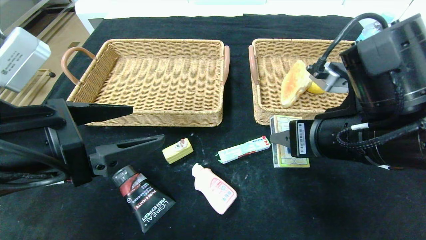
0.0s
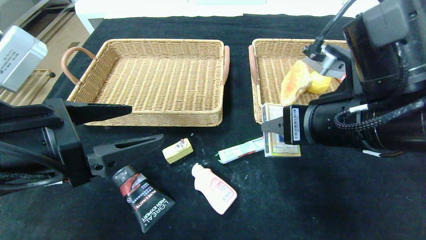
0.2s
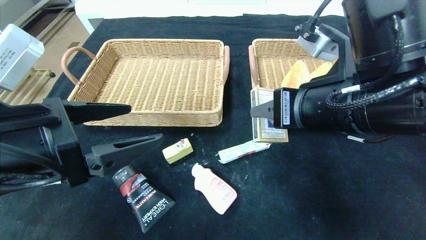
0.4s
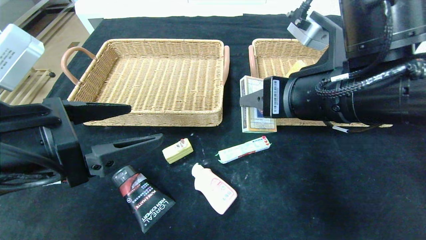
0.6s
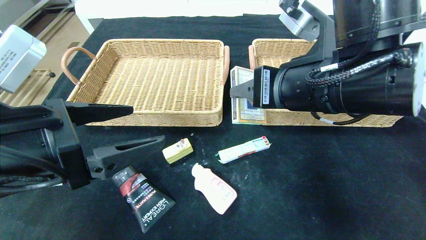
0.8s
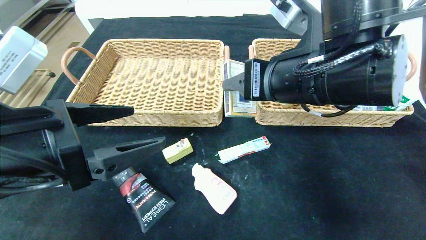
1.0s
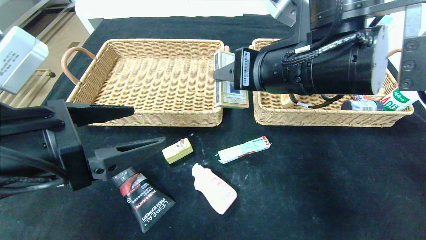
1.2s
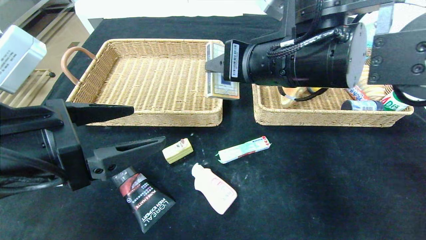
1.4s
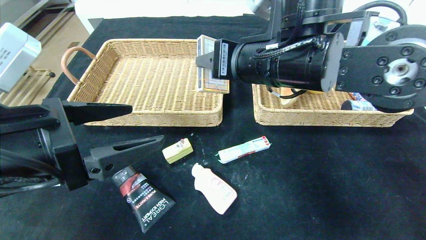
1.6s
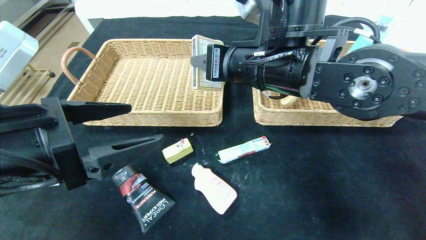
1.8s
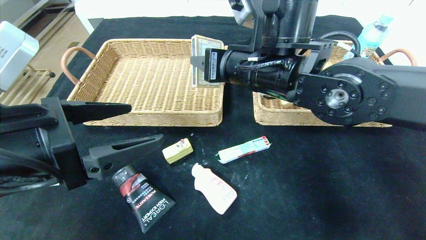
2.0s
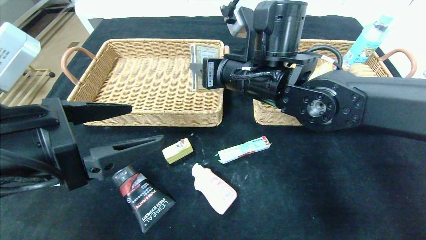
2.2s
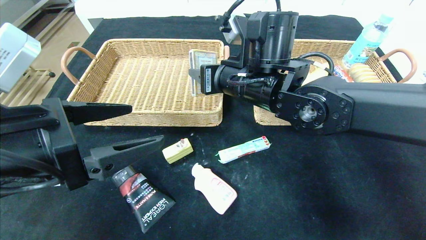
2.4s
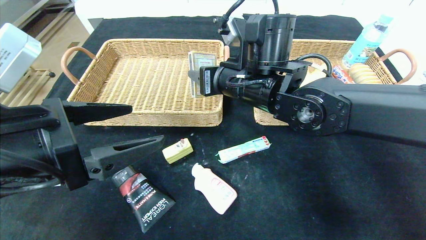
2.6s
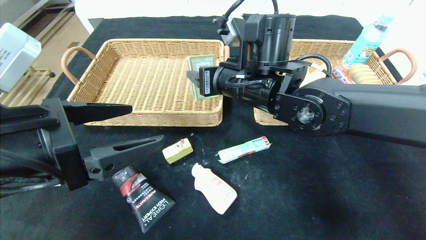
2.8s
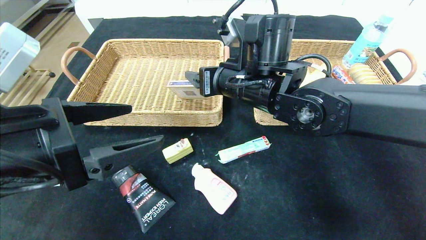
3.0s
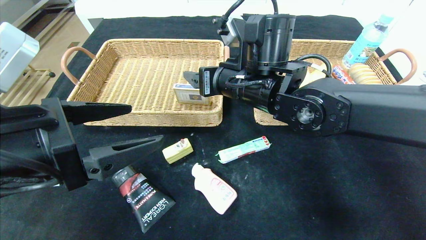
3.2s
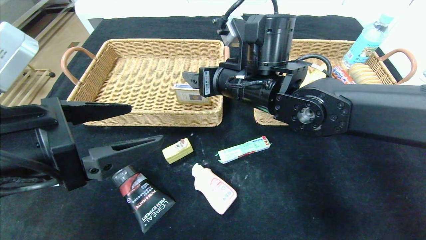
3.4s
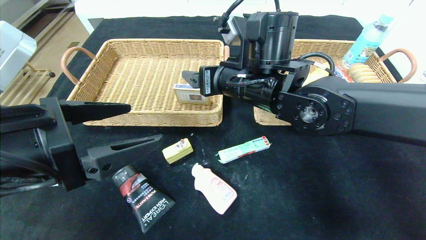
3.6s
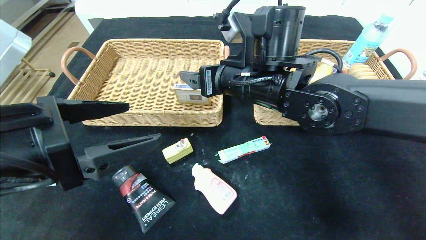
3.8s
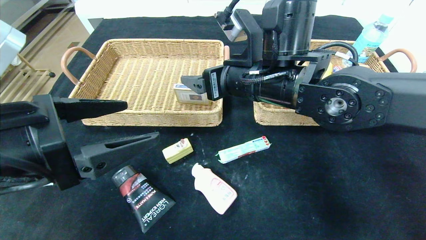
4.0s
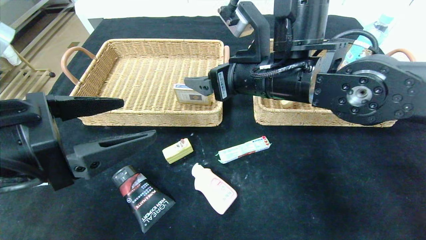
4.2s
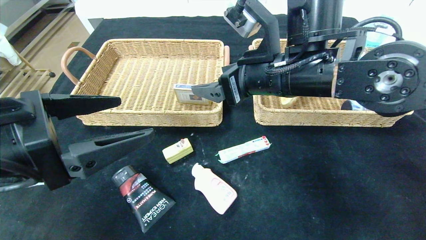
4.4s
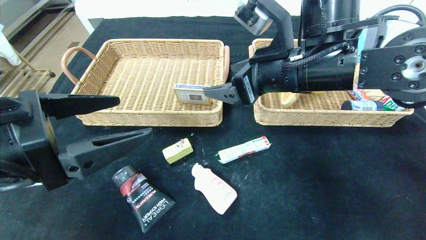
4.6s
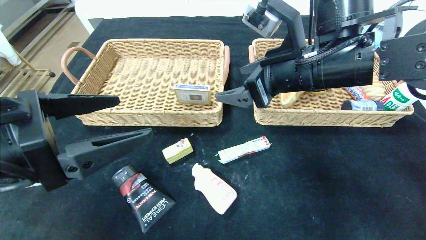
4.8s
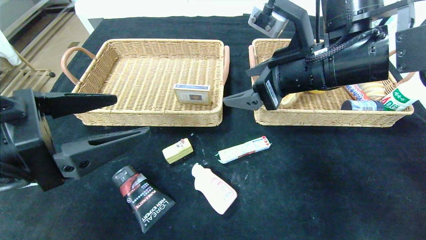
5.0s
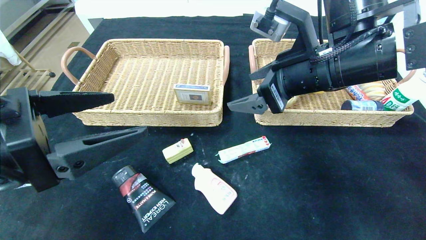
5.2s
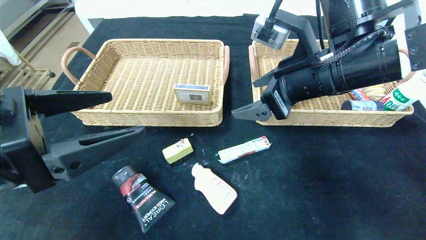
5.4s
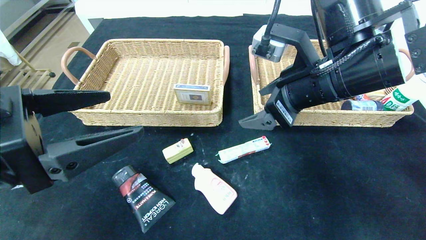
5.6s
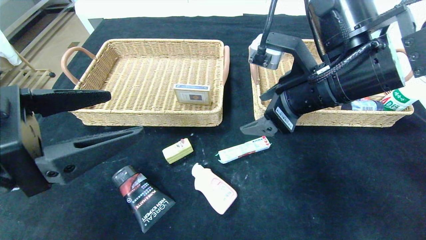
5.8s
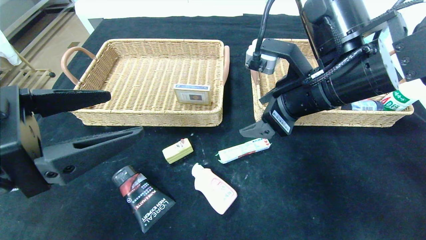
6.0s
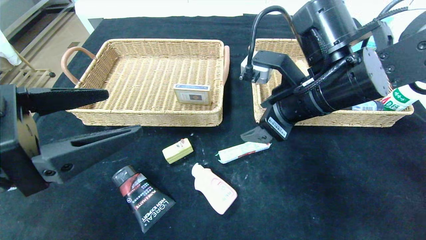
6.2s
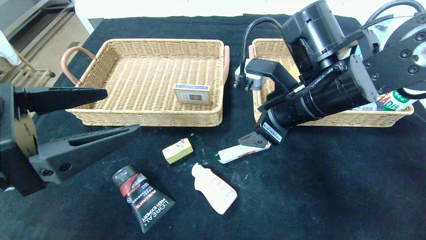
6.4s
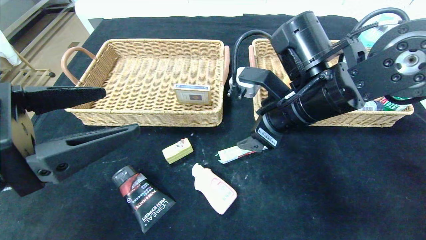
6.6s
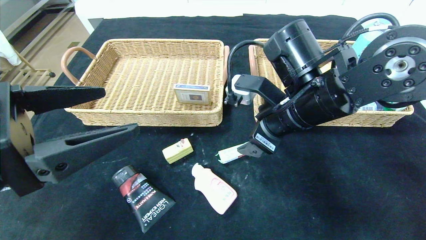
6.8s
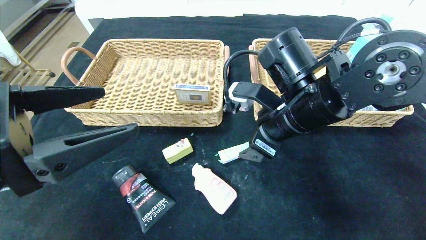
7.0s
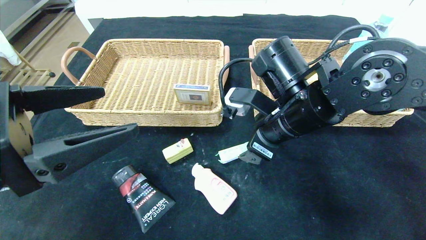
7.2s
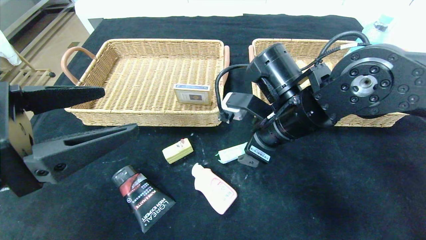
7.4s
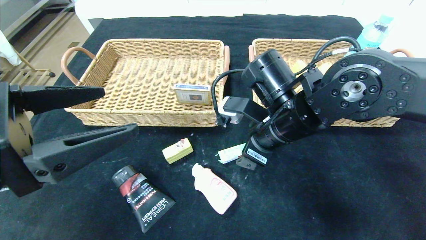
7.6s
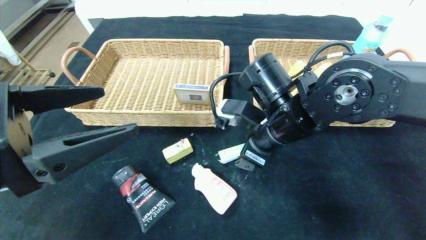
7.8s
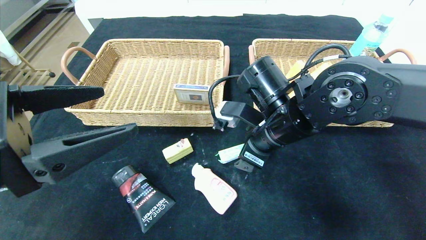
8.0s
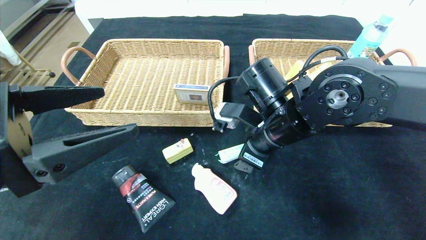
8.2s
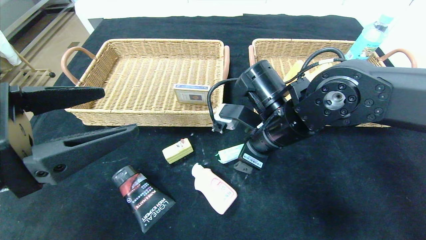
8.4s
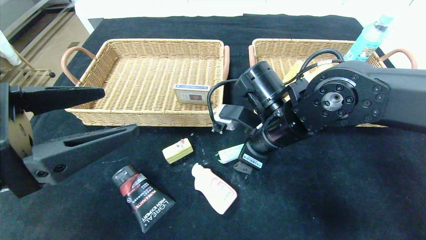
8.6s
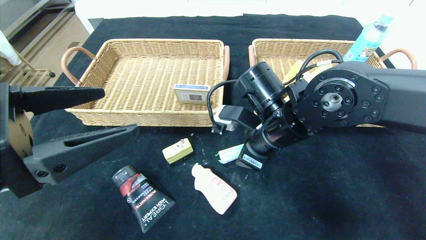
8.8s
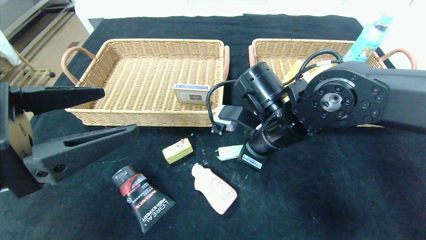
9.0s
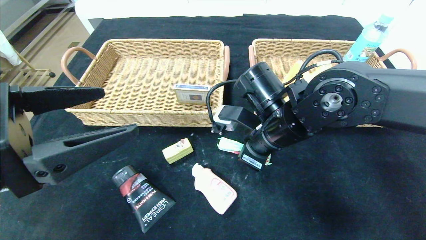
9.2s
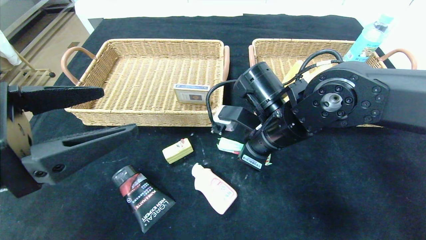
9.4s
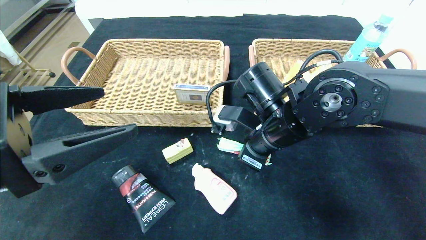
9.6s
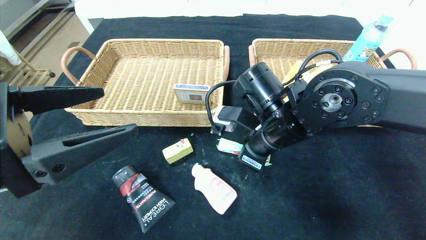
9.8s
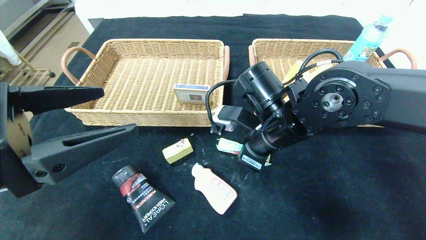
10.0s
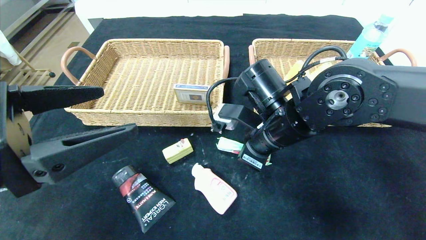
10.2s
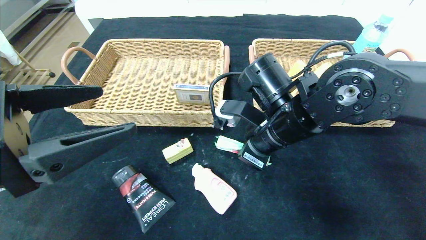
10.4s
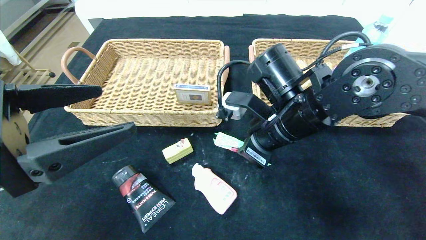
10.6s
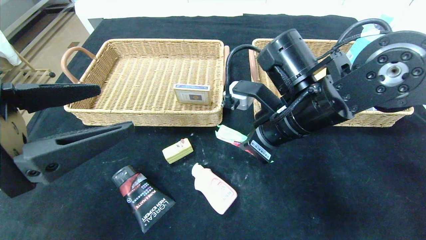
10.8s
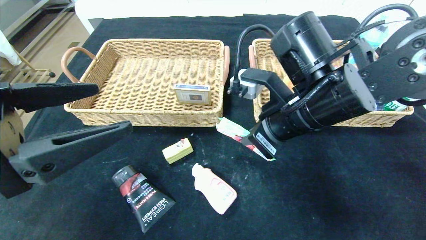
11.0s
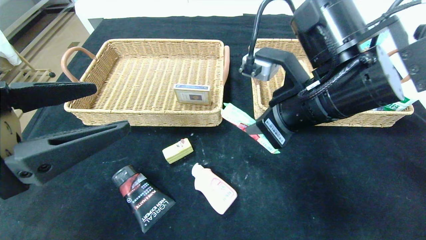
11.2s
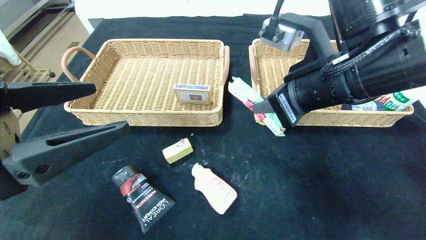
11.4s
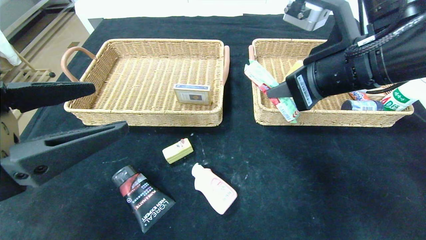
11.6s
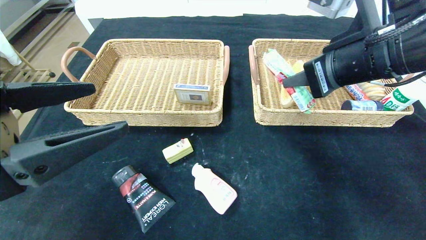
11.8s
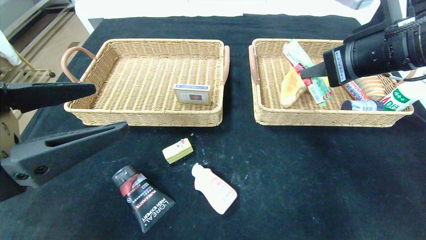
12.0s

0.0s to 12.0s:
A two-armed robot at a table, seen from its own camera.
0.0s to 1.6s: The right gripper shifts roughly 15 cm to the left, forward and upward.
1.6s to 3.0s: The right gripper ends up about 5 cm from where it was.
3.0s to 4.4s: The right gripper changes place by approximately 5 cm.
4.4s to 6.0s: The right gripper ends up roughly 5 cm from where it was.
6.0s to 7.6s: The right gripper is displaced downward by about 5 cm.
7.6s to 9.0s: The right gripper closes its fingers.
9.0s to 10.4s: The right gripper closes.
10.4s to 12.0s: The right gripper goes some 20 cm to the right and upward.

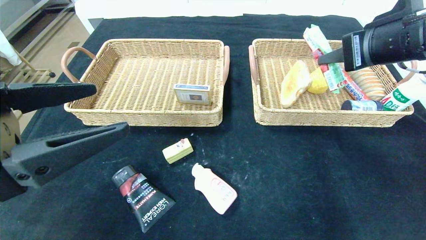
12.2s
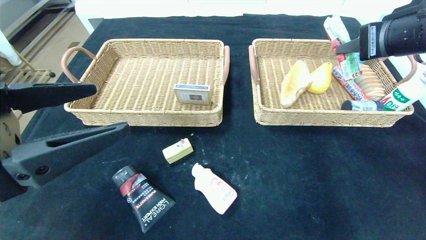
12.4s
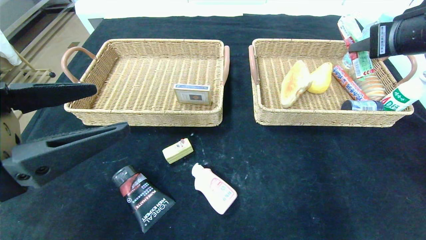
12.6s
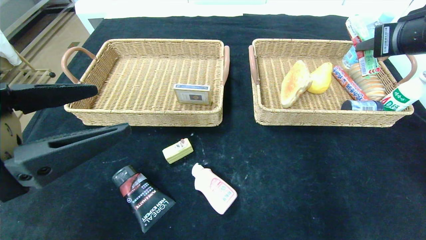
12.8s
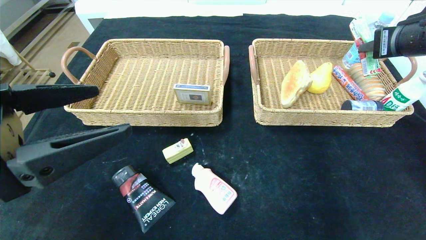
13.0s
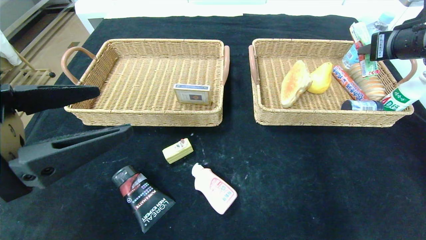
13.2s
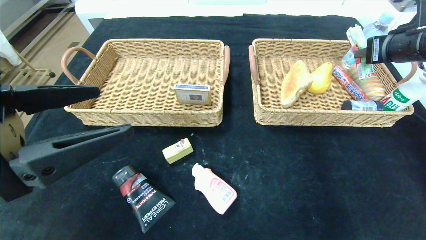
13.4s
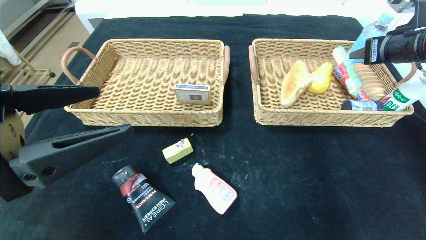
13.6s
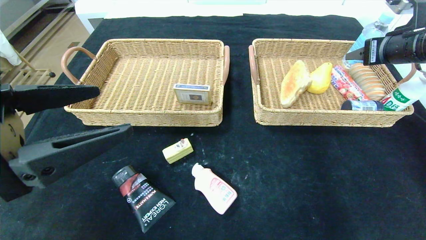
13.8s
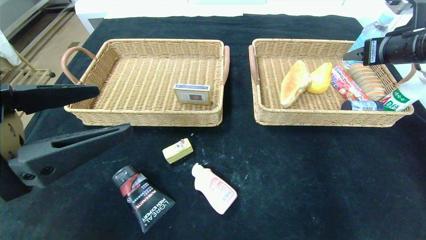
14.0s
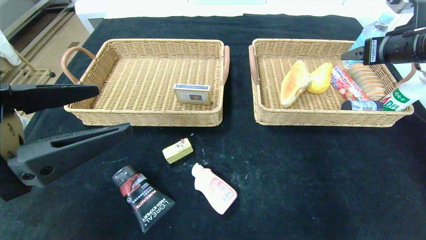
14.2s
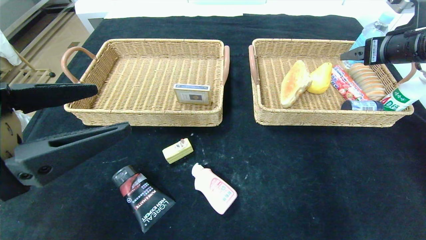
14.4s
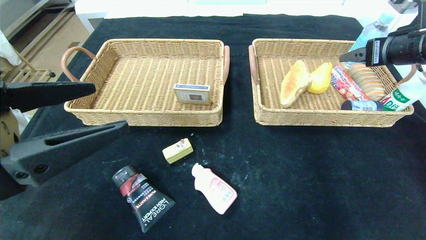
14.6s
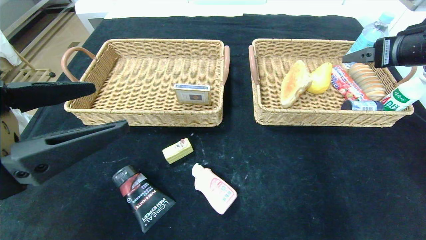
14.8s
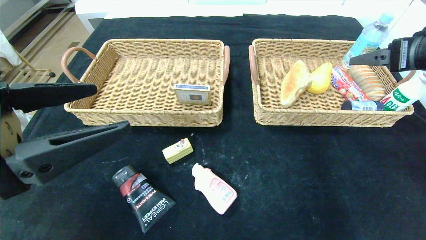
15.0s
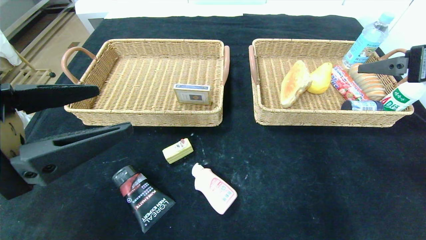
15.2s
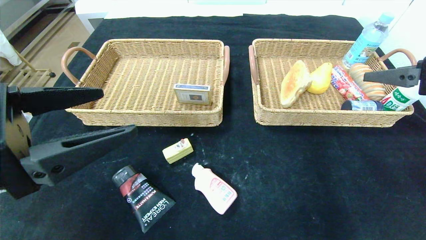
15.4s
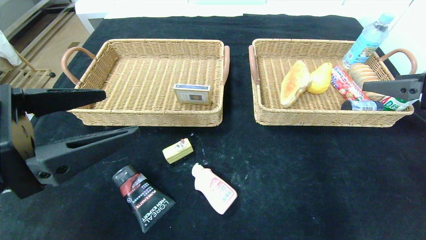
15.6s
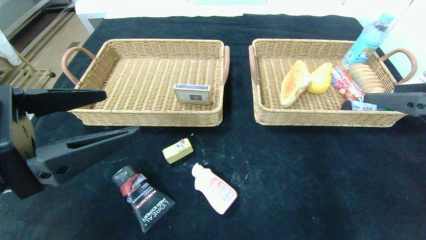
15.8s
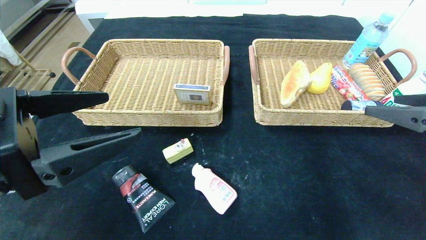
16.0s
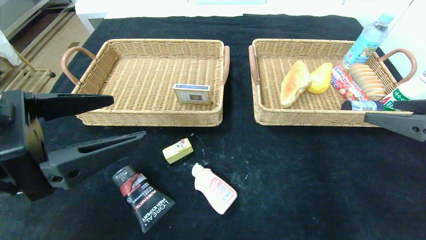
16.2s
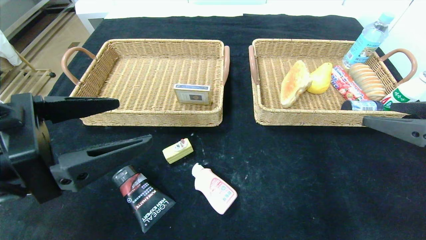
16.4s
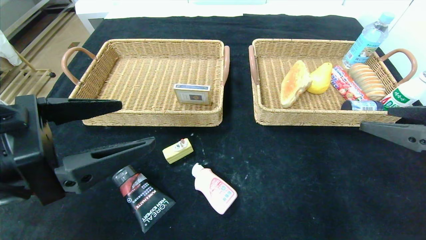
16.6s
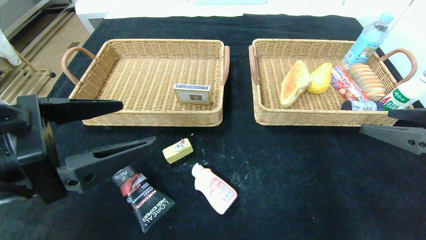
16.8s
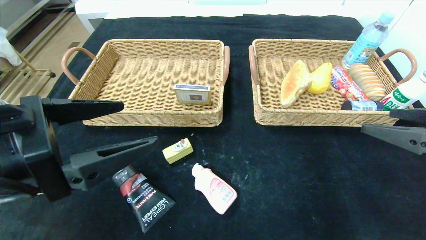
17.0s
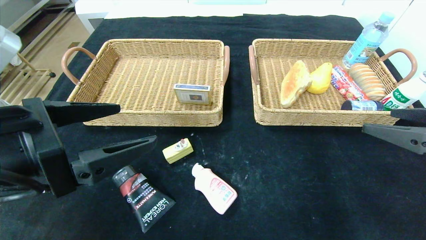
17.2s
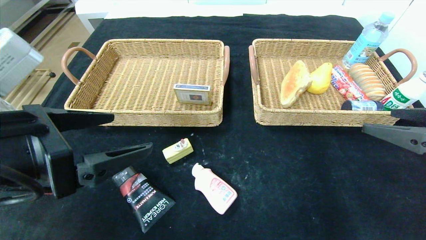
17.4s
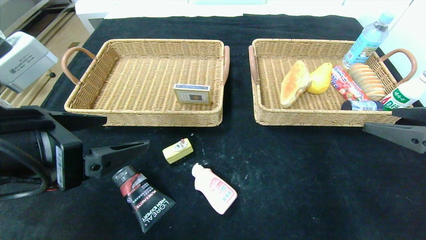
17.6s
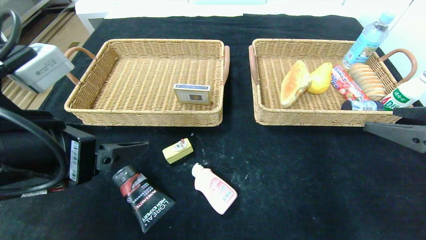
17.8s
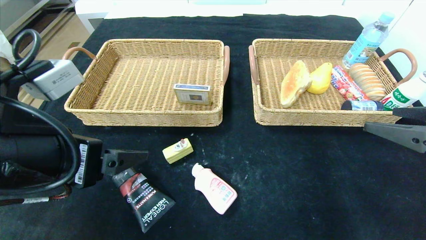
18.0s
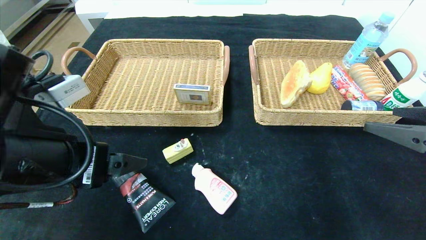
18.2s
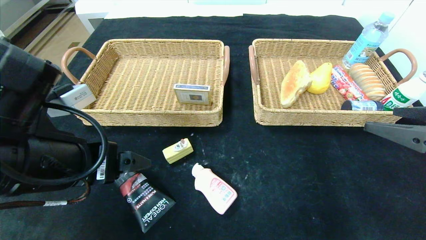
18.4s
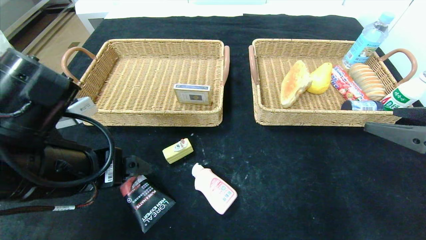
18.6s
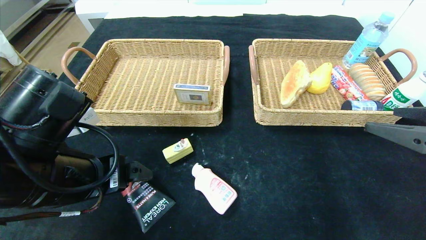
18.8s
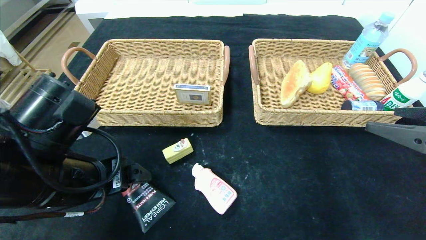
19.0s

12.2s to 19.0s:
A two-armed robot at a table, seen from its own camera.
12.2s to 13.6s: The right gripper goes approximately 10 cm to the right and forward.
13.6s to 15.0s: The right gripper is displaced backward by approximately 5 cm, and opens its fingers.
15.0s to 16.2s: The right gripper moves backward and downward, about 10 cm.
17.6s to 19.0s: The left gripper travels downward by approximately 5 cm.
